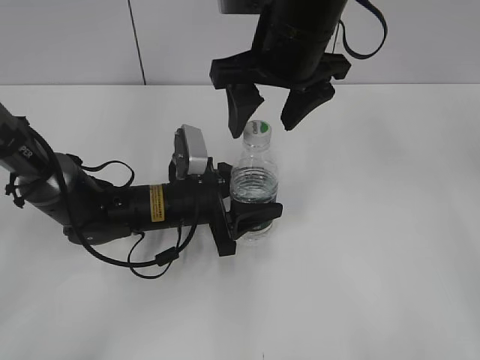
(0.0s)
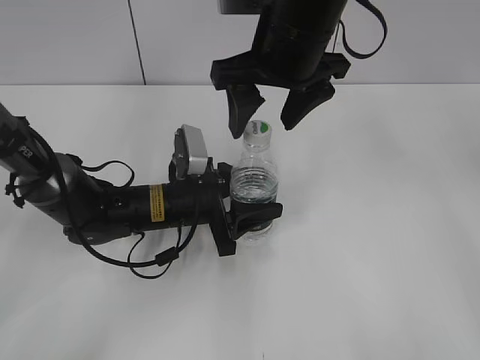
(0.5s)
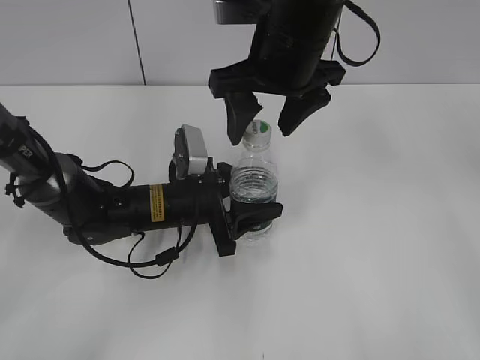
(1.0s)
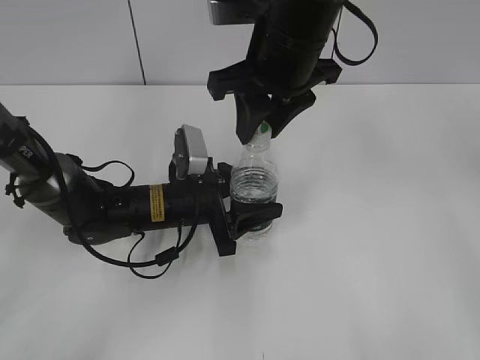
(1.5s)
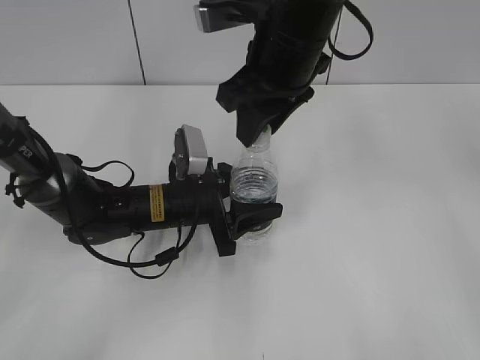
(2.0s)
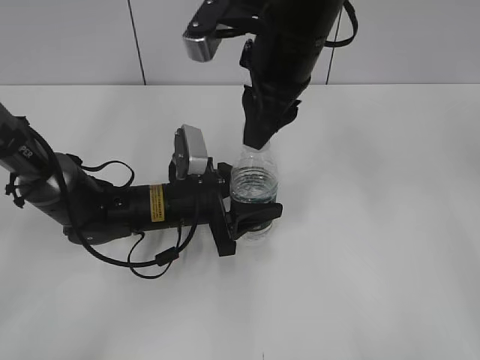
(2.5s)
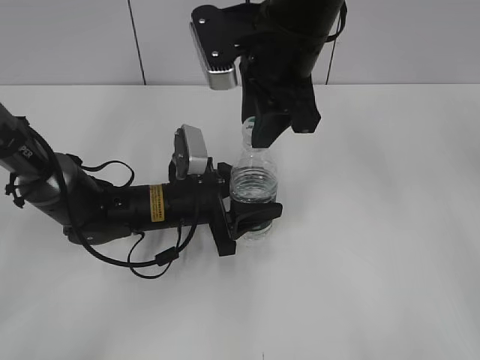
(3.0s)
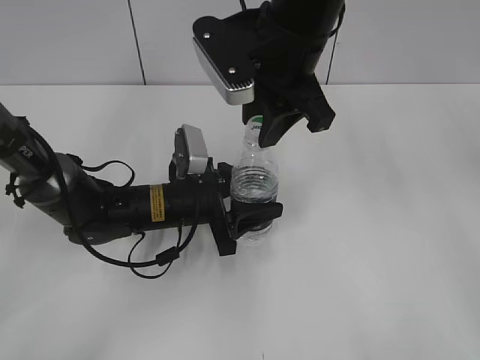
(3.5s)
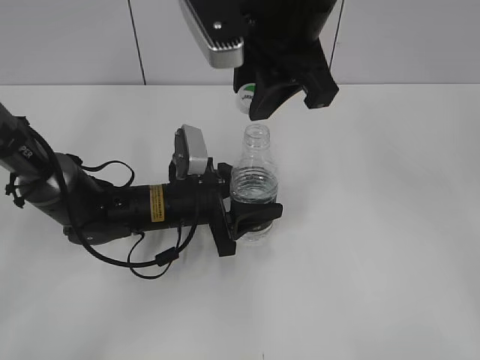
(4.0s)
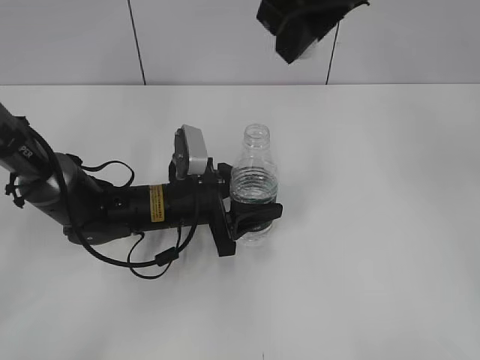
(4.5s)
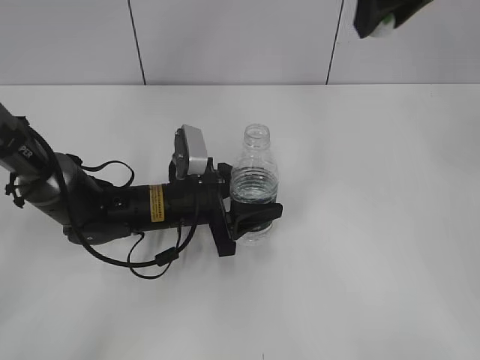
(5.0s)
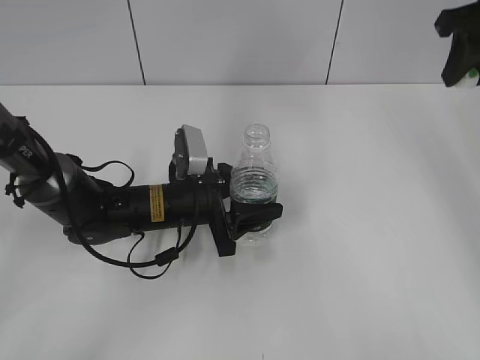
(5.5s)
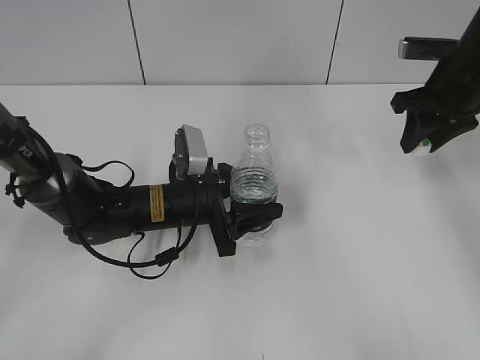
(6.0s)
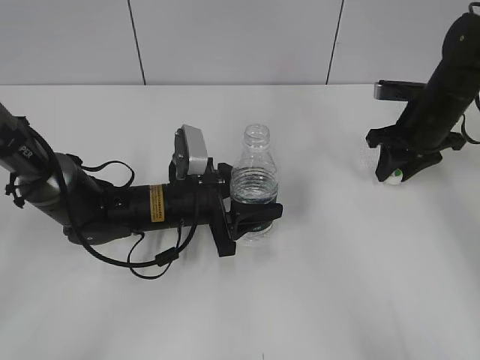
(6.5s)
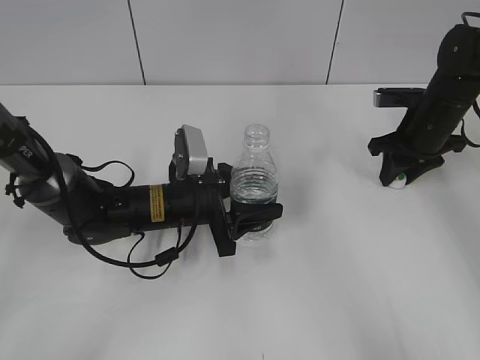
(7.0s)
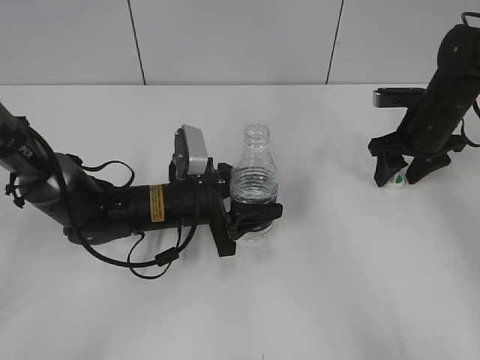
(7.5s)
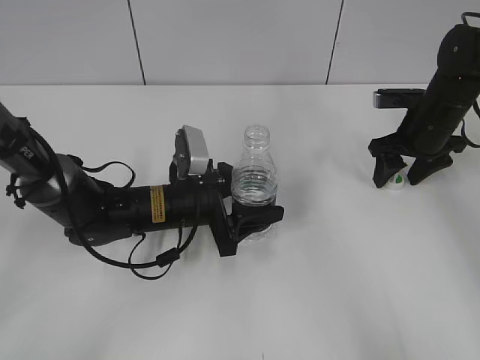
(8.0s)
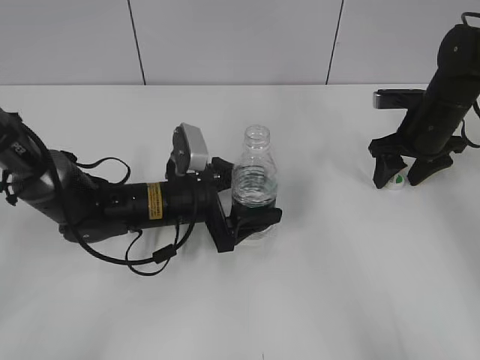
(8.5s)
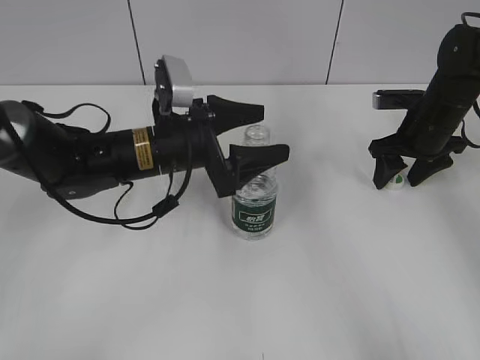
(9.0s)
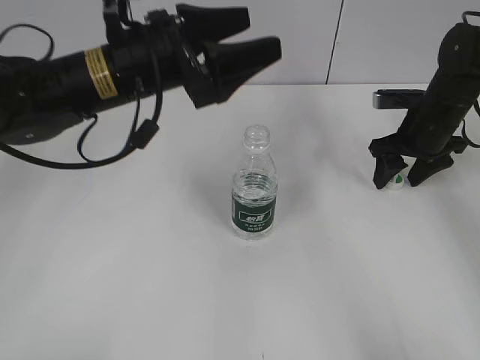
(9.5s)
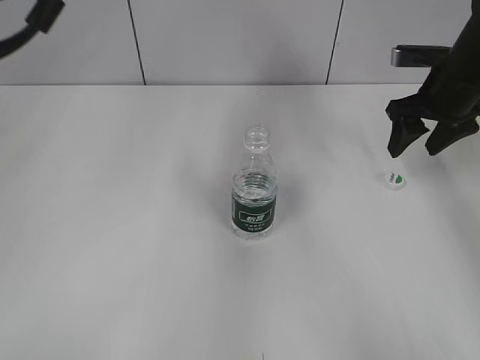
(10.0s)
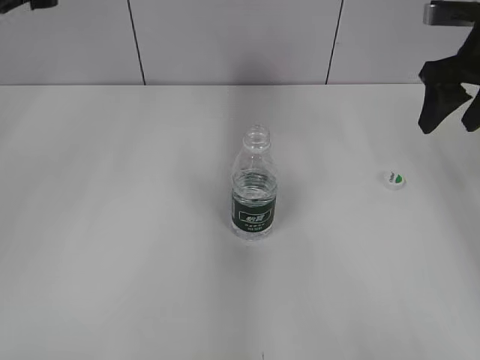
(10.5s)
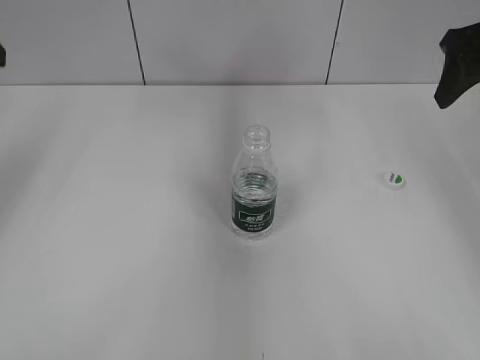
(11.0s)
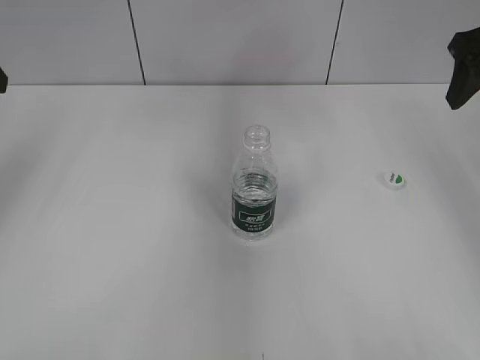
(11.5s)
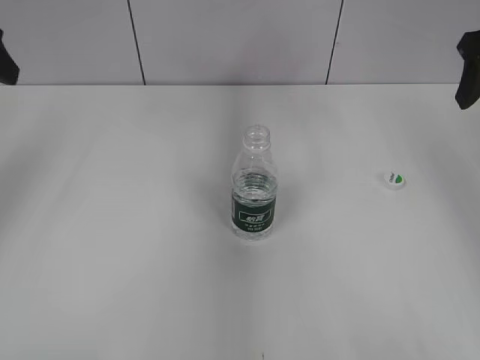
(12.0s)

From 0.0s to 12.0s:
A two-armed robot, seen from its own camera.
Step, from 0.0s to 4.0s: Unscrew the bottle cap with the right gripper while holding the bottle with the left gripper.
Step, from 4.5s to 8.0s: Place the bottle cap on the table with the right gripper.
From 0.0s to 2.0s: The right gripper closes.
From 2.0s to 4.0s: The right gripper goes approximately 5 cm upward.
From 4.0s to 6.0s: The right gripper goes roughly 30 cm to the right, downward and forward.
From 6.0s to 8.0s: The right gripper is displaced downward by approximately 10 cm, and opens up.
From 8.0s to 10.0s: The left gripper goes about 30 cm upward, and opens up. The right gripper moves upward, some 5 cm.
From 10.0s to 12.0s: The left gripper goes about 15 cm to the left; the right gripper moves upward and backward, about 15 cm.

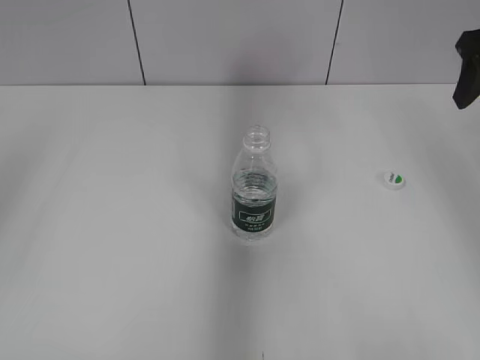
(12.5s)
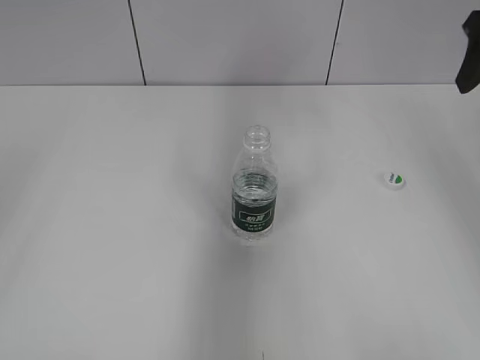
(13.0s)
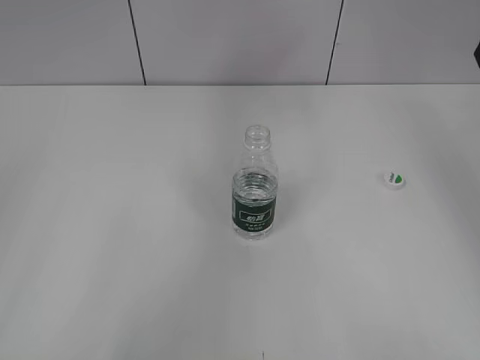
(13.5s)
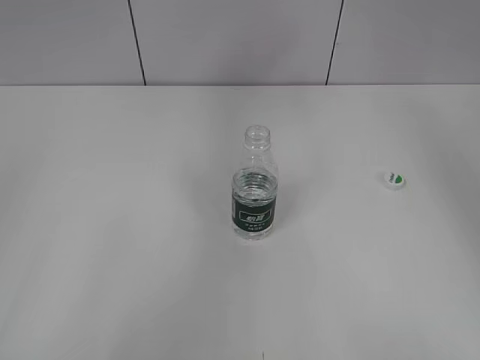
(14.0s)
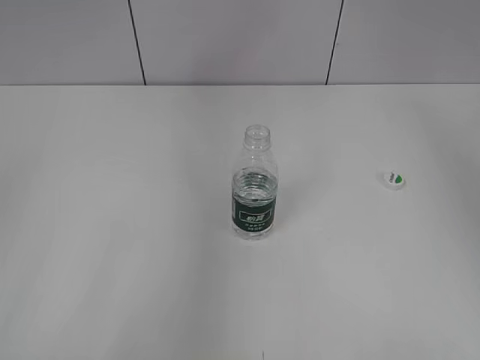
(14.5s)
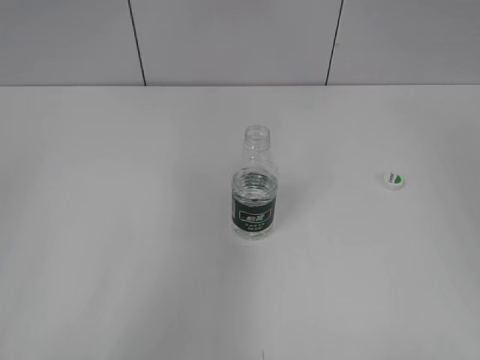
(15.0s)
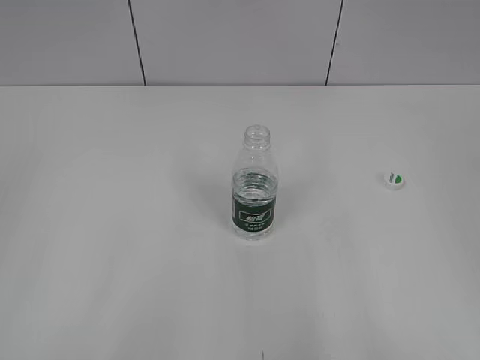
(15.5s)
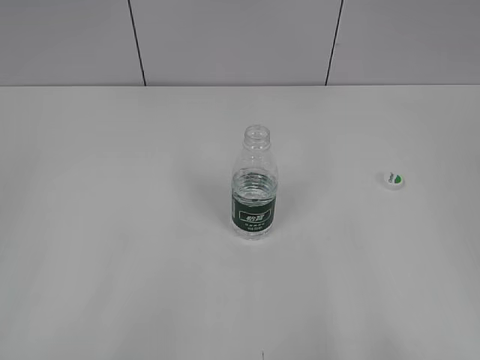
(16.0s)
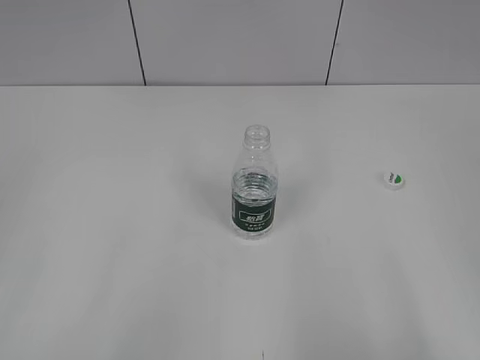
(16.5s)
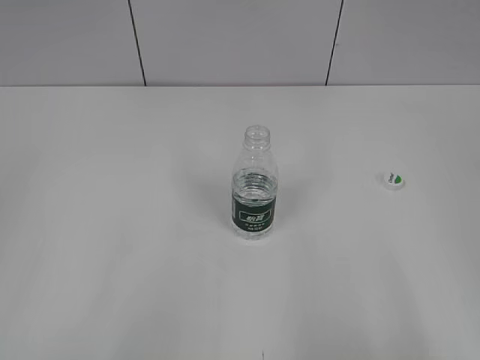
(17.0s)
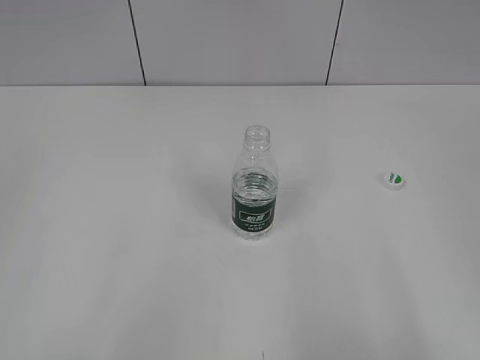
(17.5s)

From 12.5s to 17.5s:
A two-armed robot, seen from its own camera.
From 12.5s to 15.0s: The left gripper moves backward and downward, some 20 cm. Meanwhile the right gripper shifts some 30 cm backward and upward.
From 15.0s to 17.5s: The left gripper closes its fingers. The right gripper moves downward and backward, about 20 cm.

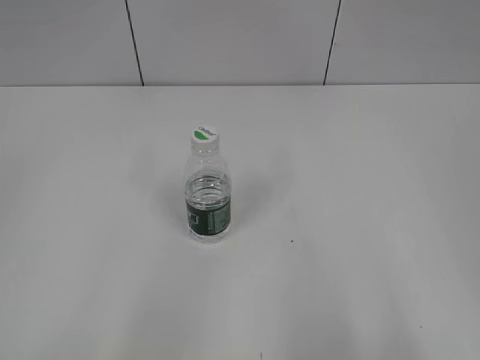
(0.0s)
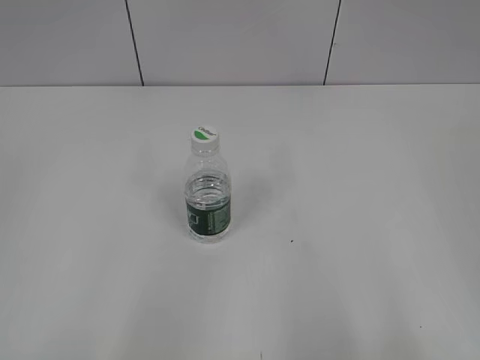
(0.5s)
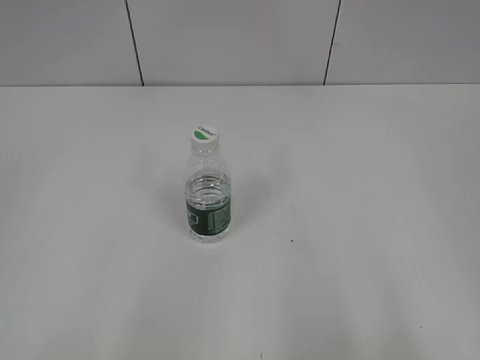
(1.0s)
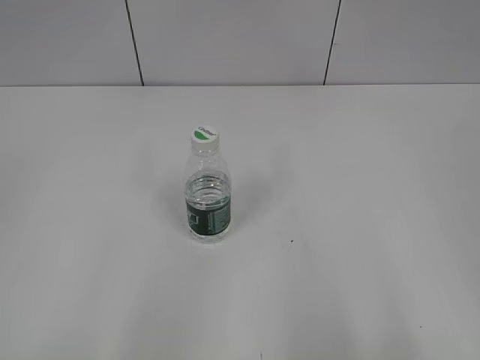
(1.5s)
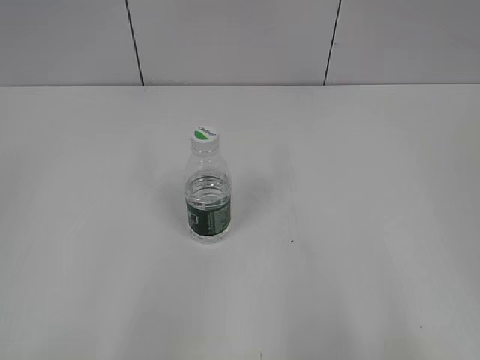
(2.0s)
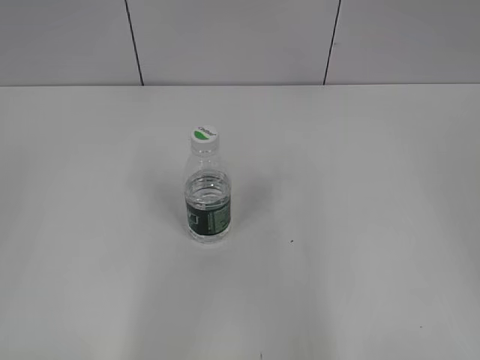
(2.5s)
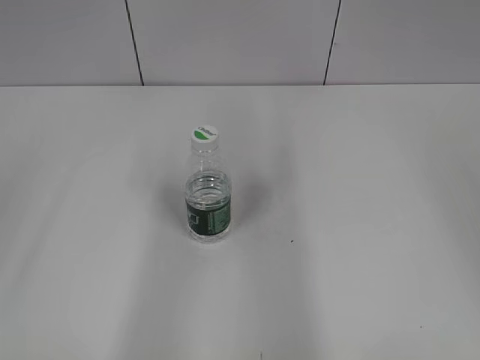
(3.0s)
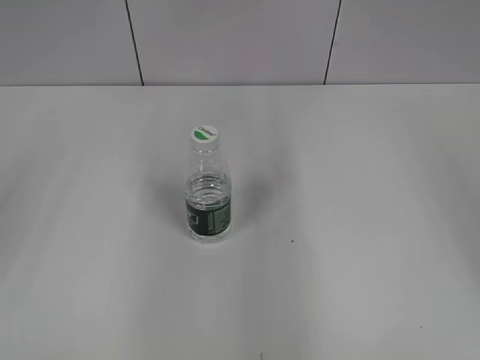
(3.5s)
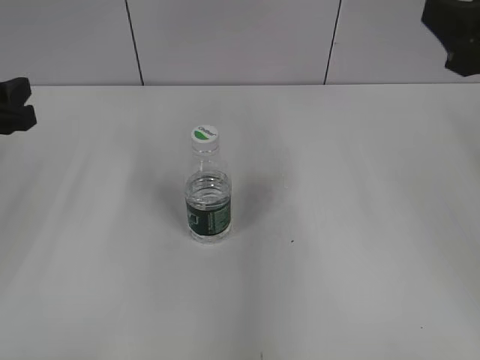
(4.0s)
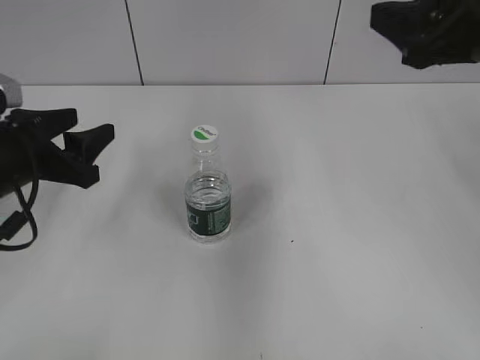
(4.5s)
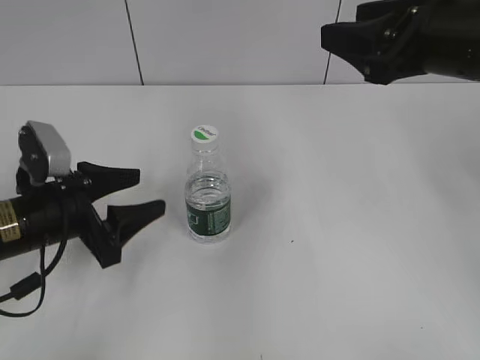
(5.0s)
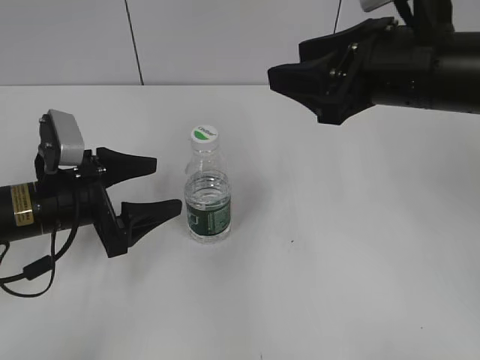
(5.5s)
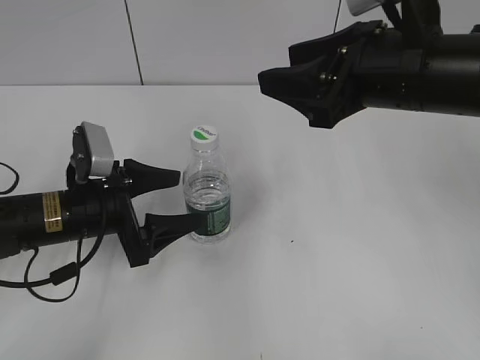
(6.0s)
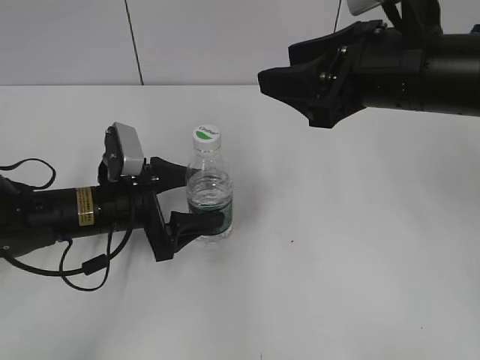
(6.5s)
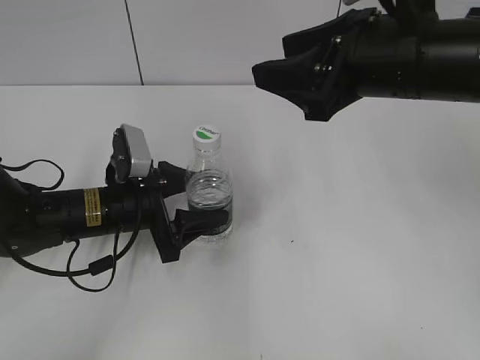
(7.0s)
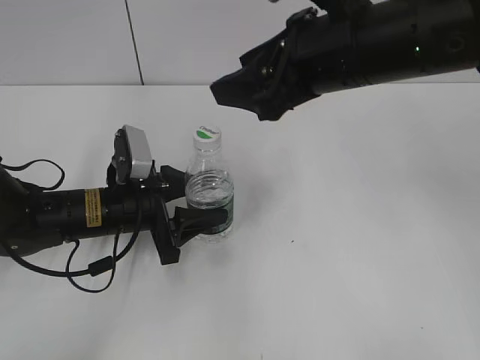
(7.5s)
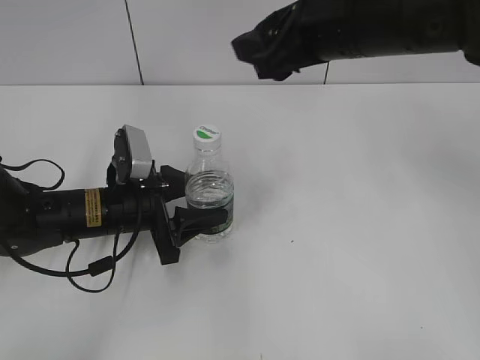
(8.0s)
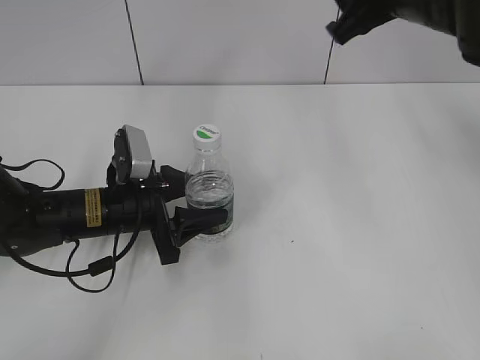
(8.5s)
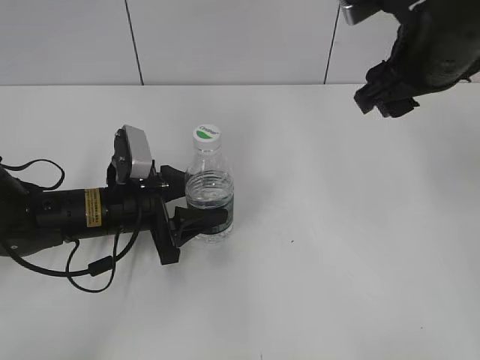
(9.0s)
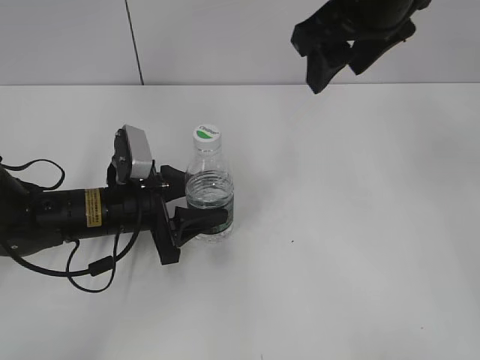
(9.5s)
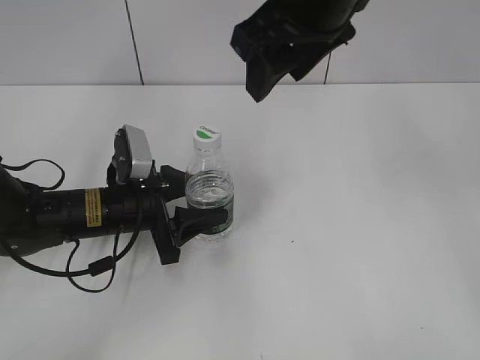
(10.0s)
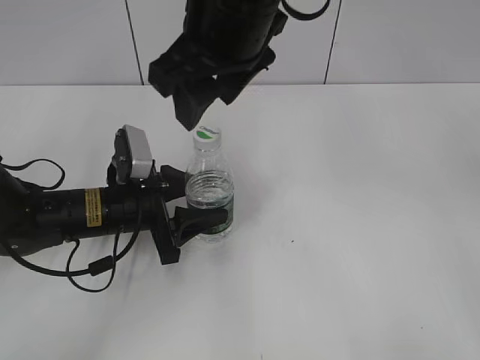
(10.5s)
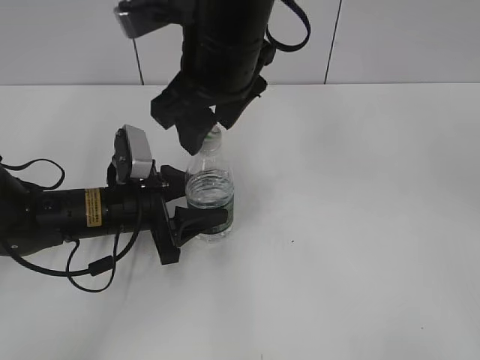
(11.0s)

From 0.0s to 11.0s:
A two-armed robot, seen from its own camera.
Step, from 0.0s to 7.0s: Grasp the bottle and move it to the center of the table with the left gripper.
From 2.0s to 3.5s: The grippers both shift forward by some 20 cm.
From 3.5s to 5.5s: The left gripper travels downward and to the right by some 20 cm, and opens up. Meanwhile the right gripper goes some 20 cm to the left, forward and downward.
From 5.5s to 7.5s: The left gripper goes roughly 5 cm to the right, and closes its fingers. The right gripper moves to the left, approximately 5 cm.
From 7.5s to 9.0s: The right gripper shifts roughly 5 cm to the right.
From 9.0s to 11.0s: The right gripper shifts approximately 15 cm to the left.
